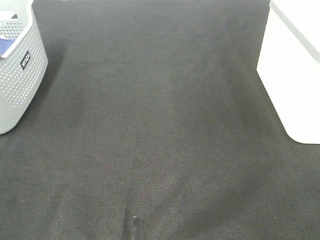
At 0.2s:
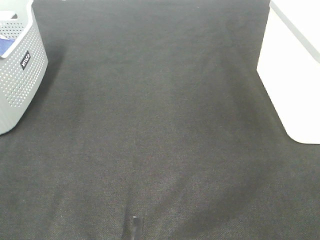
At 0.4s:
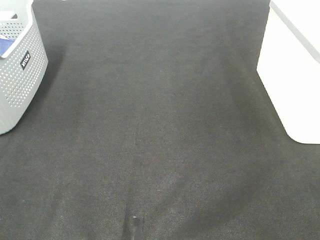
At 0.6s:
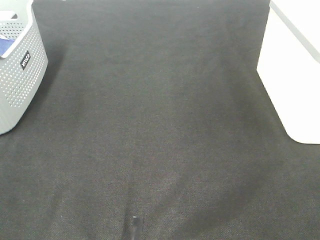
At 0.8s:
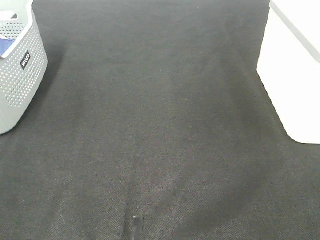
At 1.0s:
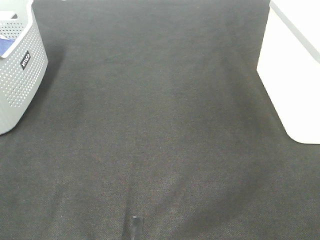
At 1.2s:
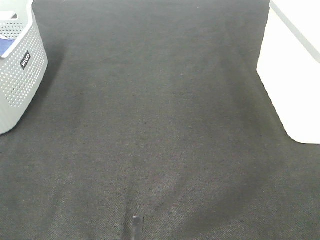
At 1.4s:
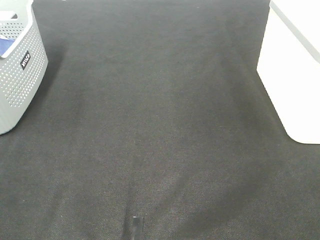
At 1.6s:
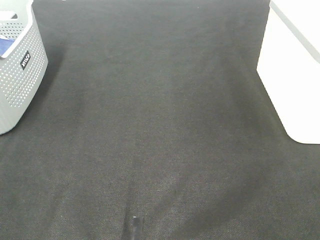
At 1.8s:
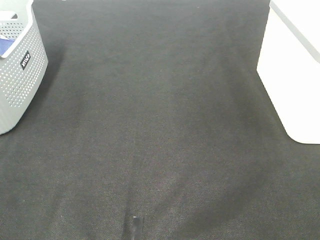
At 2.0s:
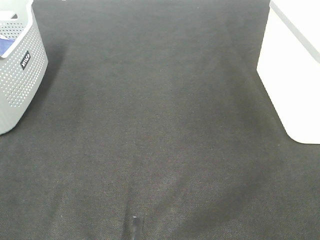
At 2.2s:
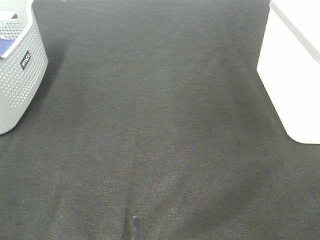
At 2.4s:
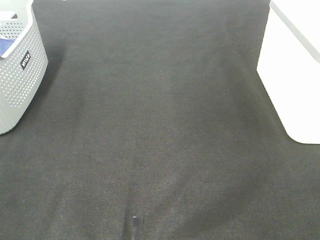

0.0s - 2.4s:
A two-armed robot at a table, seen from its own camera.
1.2s - 2.4s: Both grippers stay put.

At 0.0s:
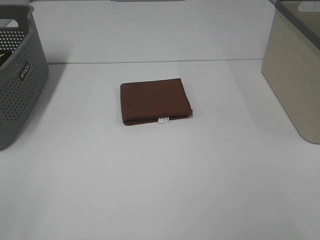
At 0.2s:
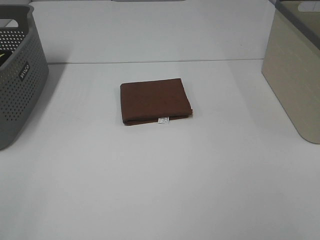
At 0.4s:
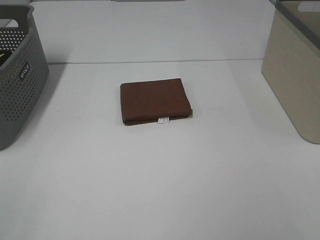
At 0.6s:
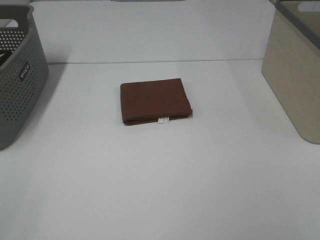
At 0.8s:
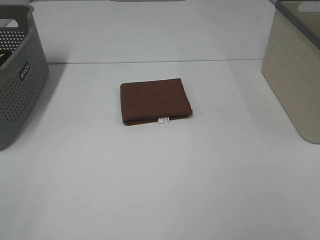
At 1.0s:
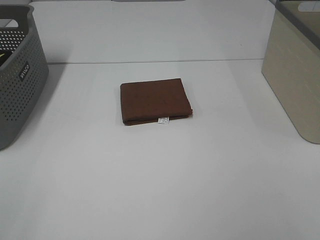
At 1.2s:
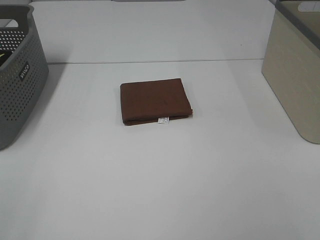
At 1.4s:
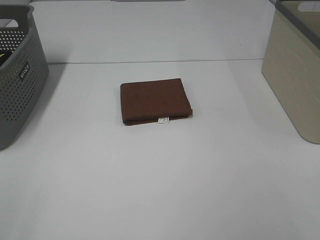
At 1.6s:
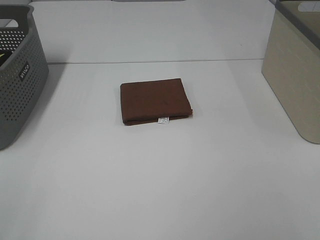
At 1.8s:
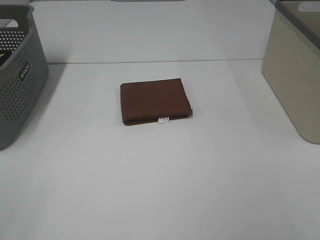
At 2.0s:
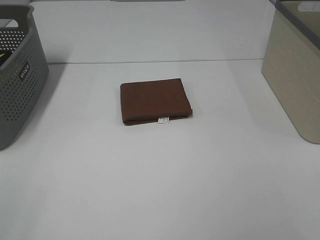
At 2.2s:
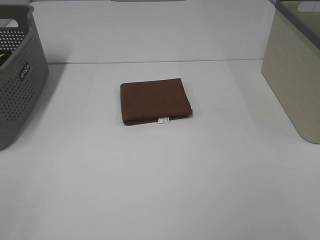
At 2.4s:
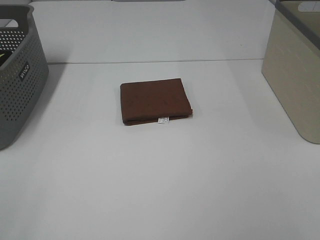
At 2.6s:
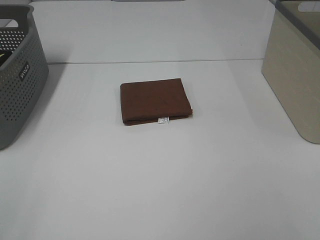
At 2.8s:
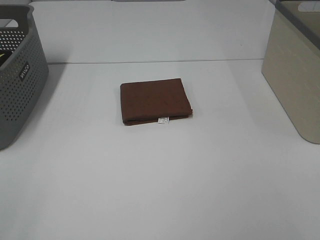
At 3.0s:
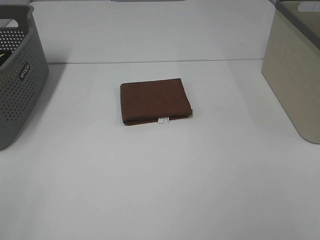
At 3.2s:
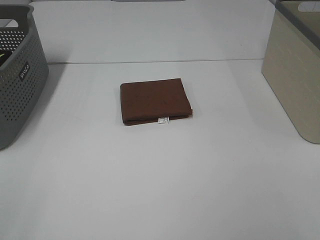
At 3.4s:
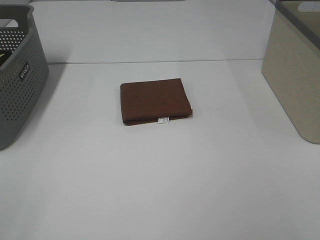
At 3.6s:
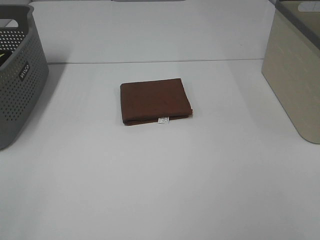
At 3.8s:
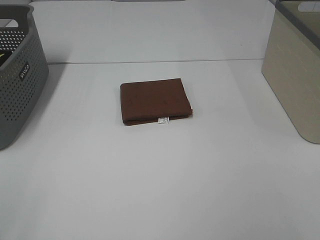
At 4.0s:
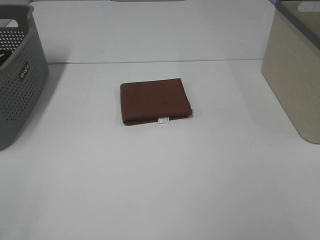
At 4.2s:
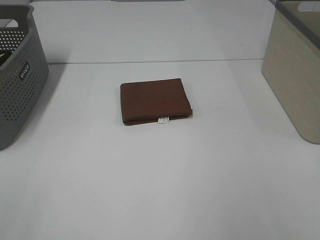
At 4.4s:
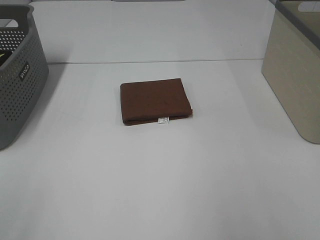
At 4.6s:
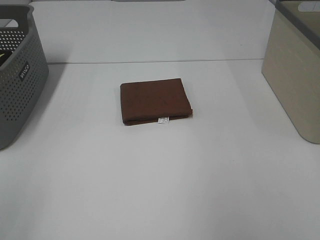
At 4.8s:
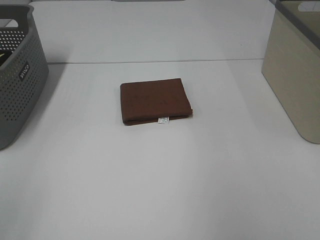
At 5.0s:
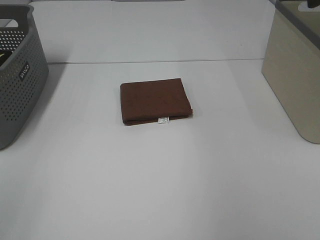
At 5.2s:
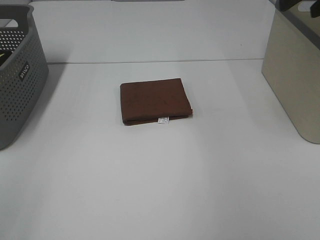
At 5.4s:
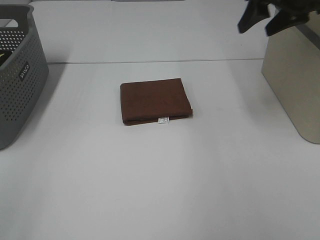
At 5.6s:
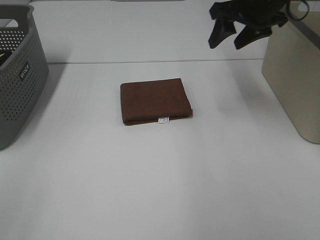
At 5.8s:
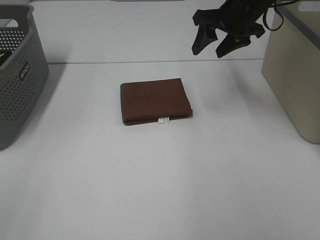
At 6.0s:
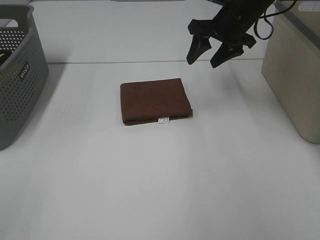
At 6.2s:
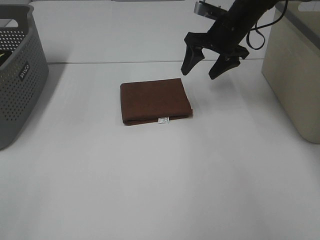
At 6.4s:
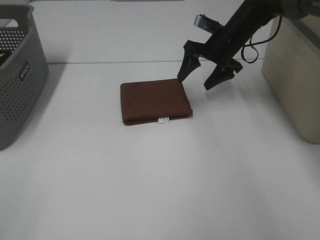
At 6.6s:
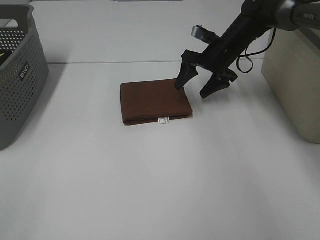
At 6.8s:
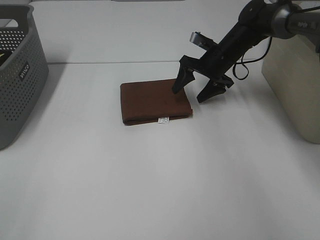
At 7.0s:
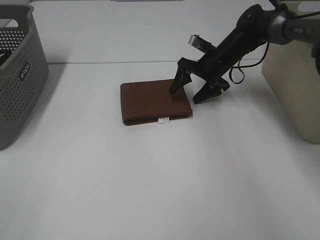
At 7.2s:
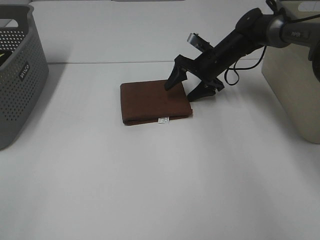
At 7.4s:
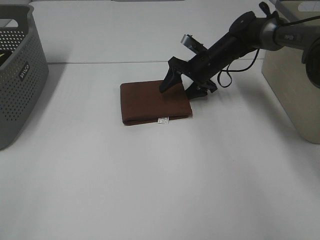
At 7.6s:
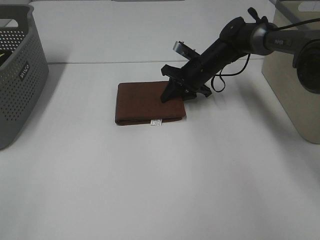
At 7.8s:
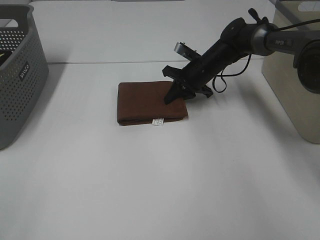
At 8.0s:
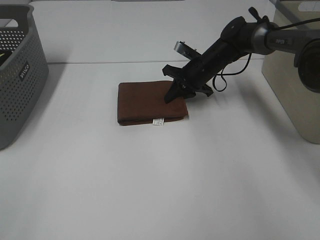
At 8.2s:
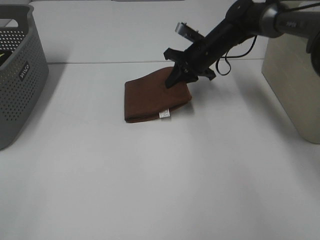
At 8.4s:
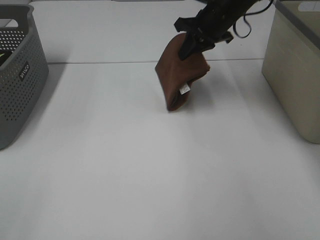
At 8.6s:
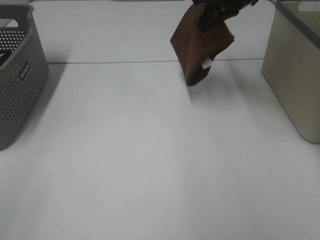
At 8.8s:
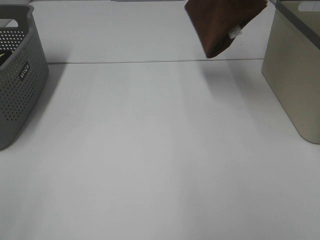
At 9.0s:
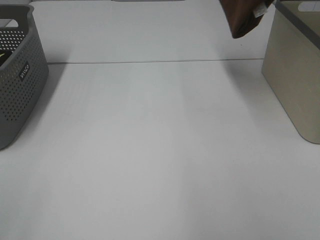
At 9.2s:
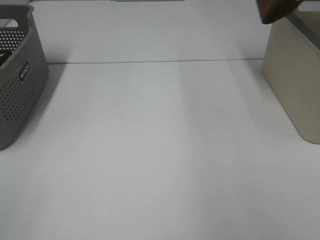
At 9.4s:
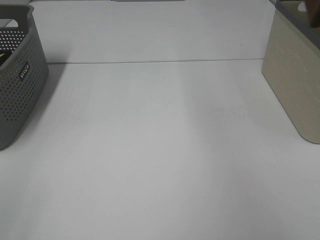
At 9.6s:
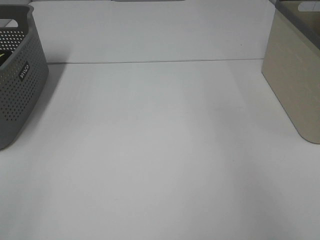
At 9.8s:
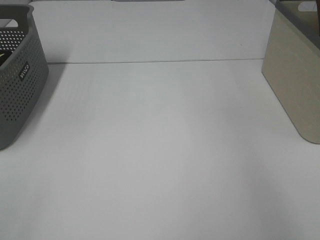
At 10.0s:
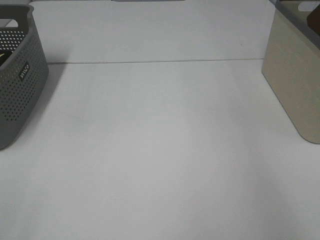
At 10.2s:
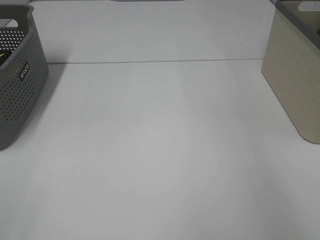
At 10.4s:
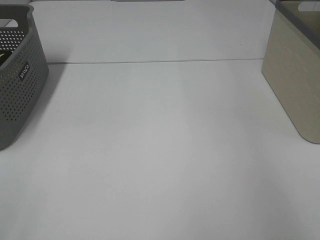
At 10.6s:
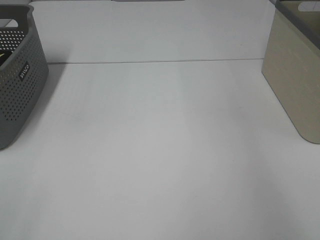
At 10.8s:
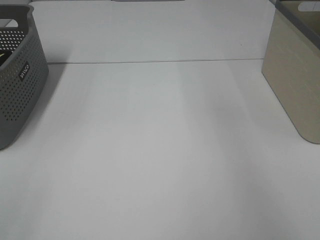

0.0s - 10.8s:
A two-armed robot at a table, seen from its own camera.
Step, 0.0s - 7.8s: Right hand: grab the folded brown towel.
Step, 8.0s - 10.4s: Right hand: place the brown towel in right basket.
0.0s - 3.0s: Both grippers stay about where they are.
4.6s - 6.2s: The right gripper shifts approximately 35 cm forward, downward and to the left.
6.2s - 7.8s: The right gripper travels downward by some 10 cm, and closes up.
7.8s - 9.2s: The right gripper moves upward and to the right, about 40 cm.
9.2s - 10.8s: The right gripper shifts approximately 5 cm to the right, and opens.

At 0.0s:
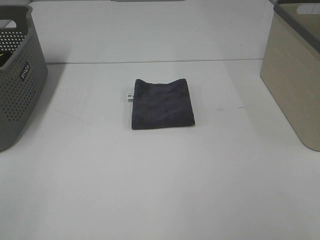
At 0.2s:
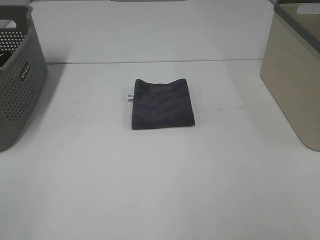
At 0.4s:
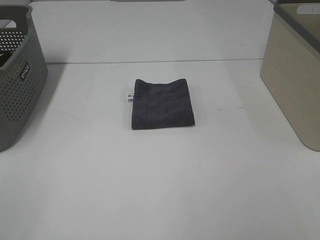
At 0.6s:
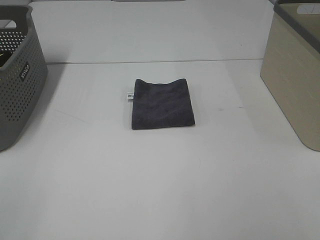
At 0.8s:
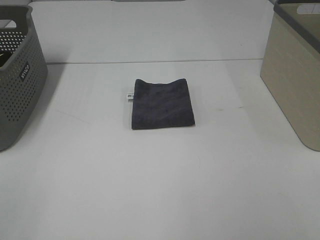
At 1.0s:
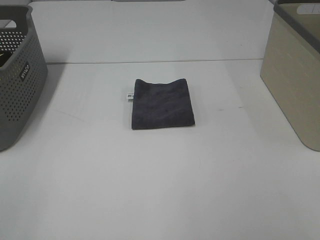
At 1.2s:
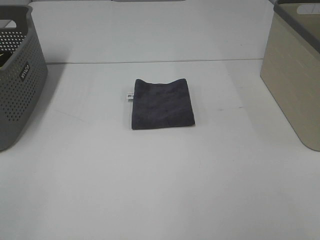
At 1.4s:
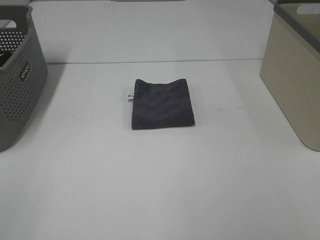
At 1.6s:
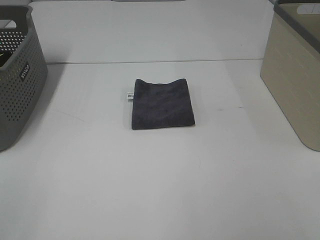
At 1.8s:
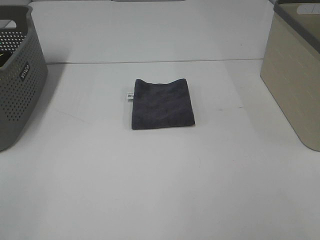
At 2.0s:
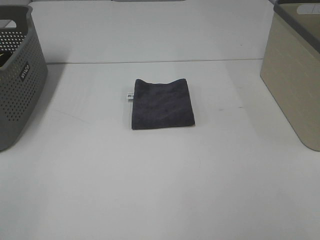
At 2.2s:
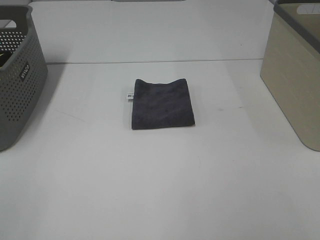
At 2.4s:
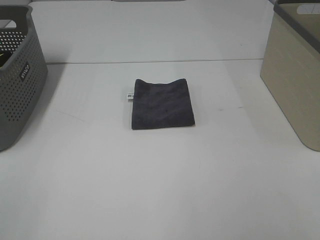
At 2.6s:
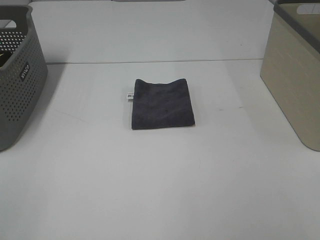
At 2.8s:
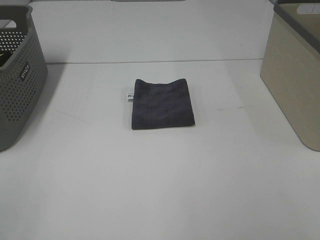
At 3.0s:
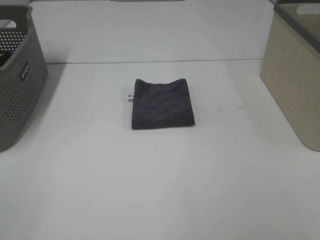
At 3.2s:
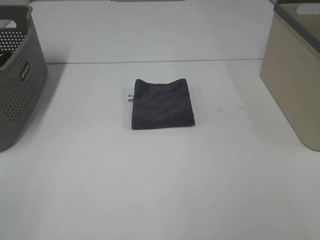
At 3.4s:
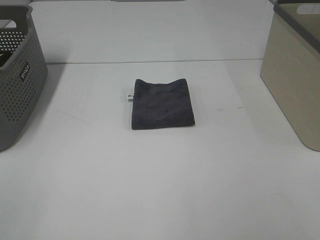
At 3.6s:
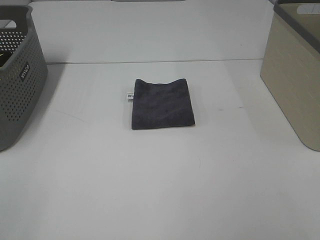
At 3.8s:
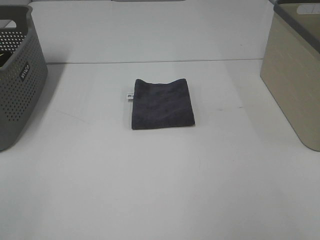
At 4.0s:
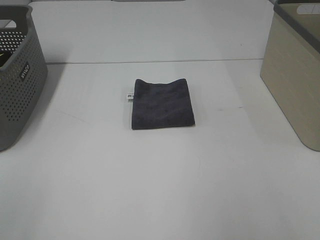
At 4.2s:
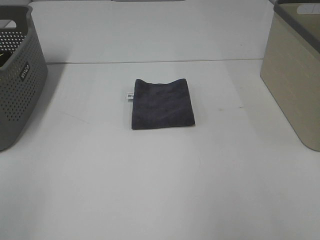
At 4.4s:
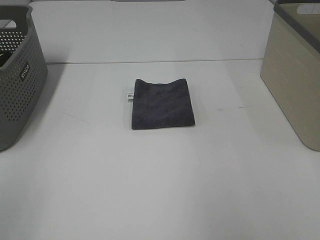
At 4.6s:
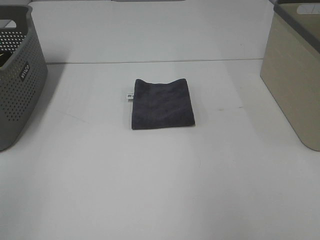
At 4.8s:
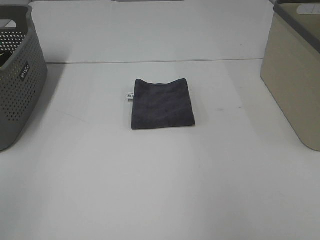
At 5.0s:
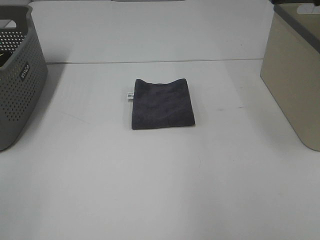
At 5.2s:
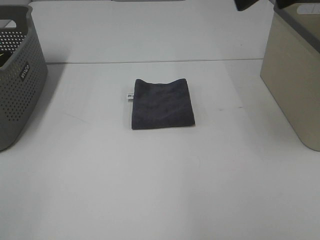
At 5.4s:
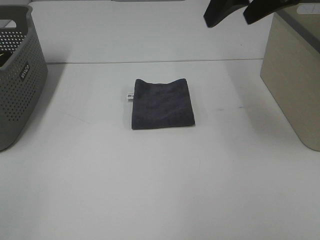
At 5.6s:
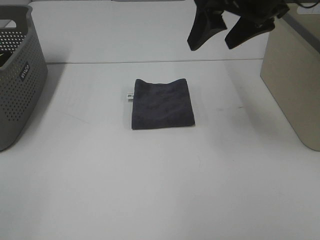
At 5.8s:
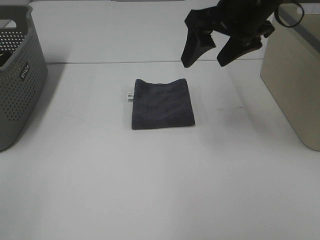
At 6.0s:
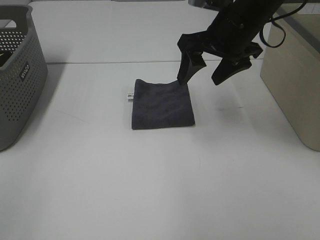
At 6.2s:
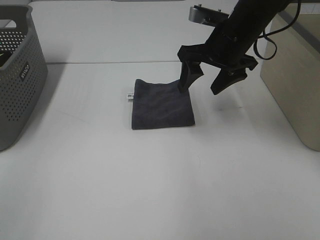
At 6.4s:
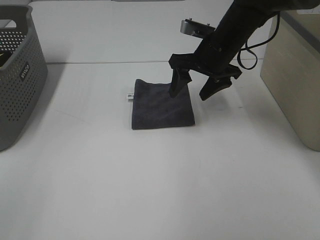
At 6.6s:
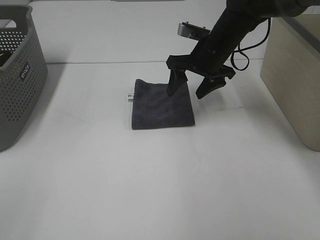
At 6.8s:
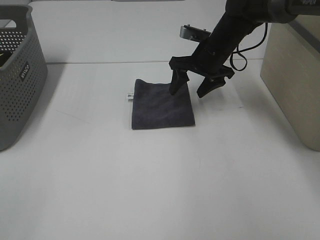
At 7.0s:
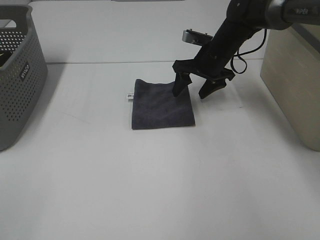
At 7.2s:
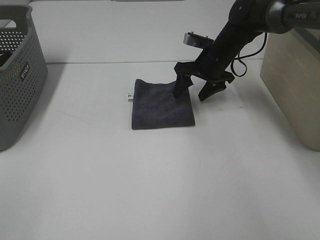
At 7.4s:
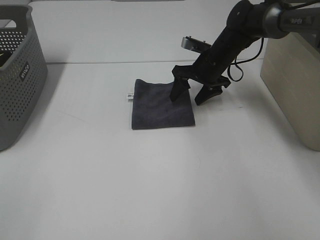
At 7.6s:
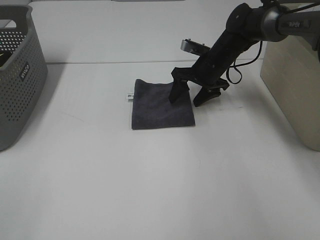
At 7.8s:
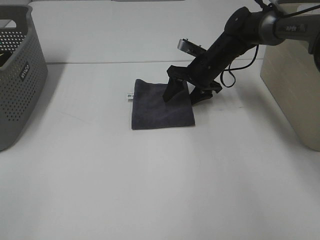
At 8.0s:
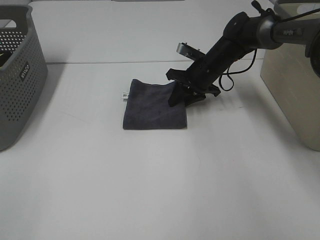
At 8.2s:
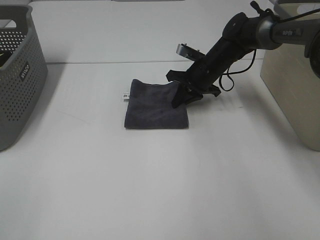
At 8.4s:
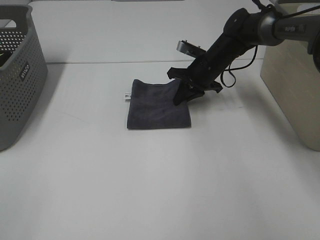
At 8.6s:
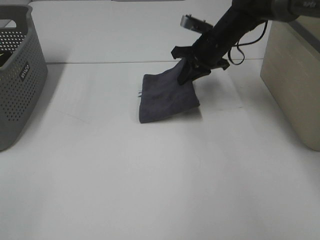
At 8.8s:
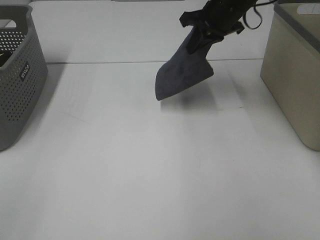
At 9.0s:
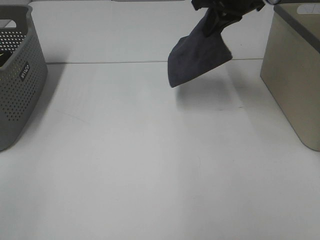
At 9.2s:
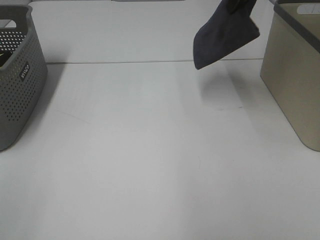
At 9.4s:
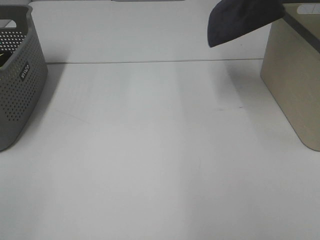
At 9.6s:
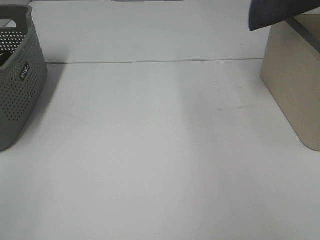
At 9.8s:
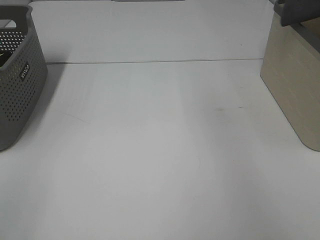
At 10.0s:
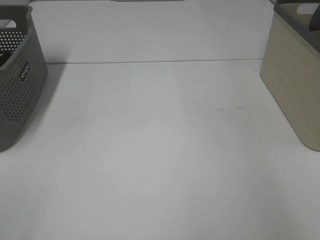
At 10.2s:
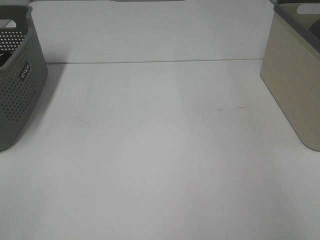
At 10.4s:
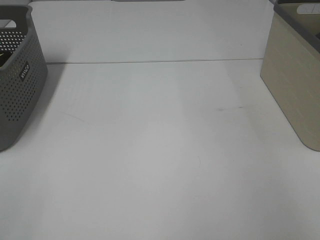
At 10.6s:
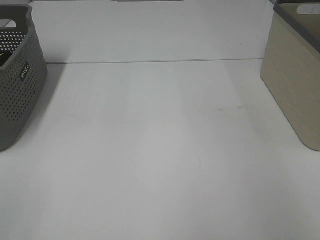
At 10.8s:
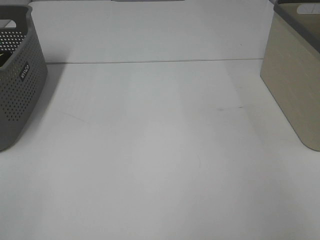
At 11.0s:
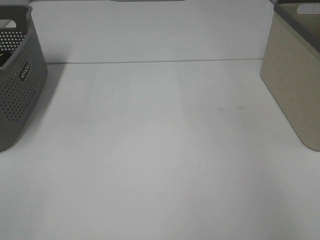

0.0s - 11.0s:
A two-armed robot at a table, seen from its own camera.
Step, 0.0s - 8.2s: Right hand: grab the folded grey towel.
Step, 8.4s - 11.0s: Right hand: place the grey towel in right basket.
0.0s - 3.2s: Both grippers stay about where they are.
4.8s - 6.2s: The right gripper goes approximately 25 cm downward, to the left and forward.
6.2s - 7.8s: The right gripper moves downward and forward, approximately 15 cm.
7.8s - 9.4s: The right gripper is displaced upward by approximately 30 cm, and closes up.
9.4s - 11.0s: The right gripper goes roughly 15 cm to the right, and opens its fingers.
